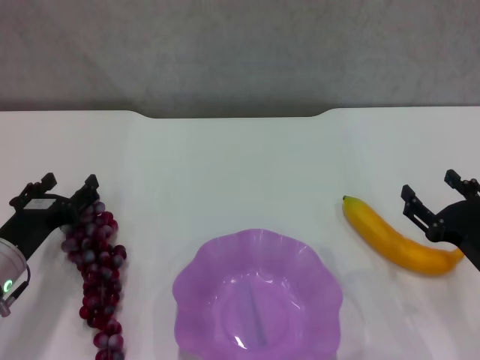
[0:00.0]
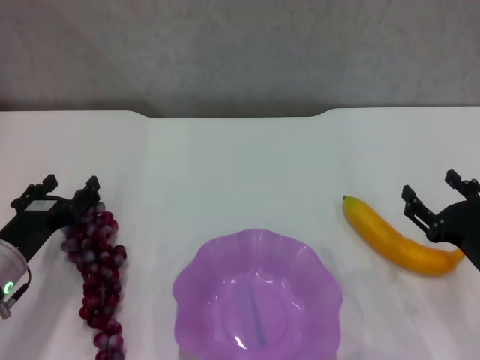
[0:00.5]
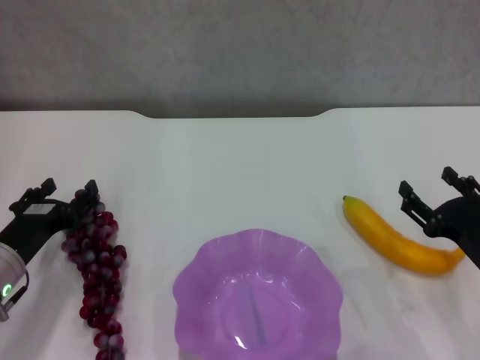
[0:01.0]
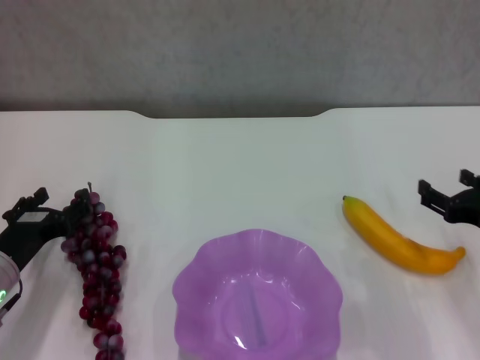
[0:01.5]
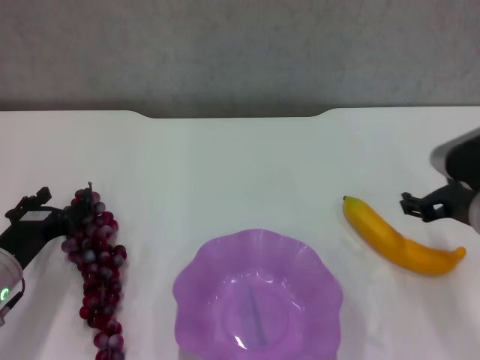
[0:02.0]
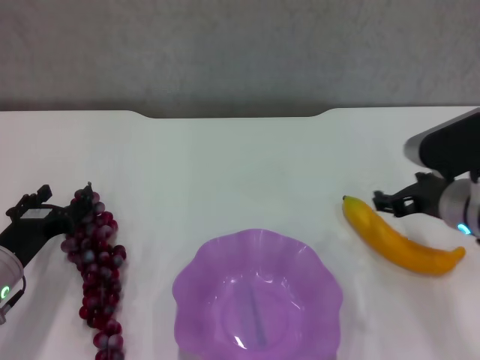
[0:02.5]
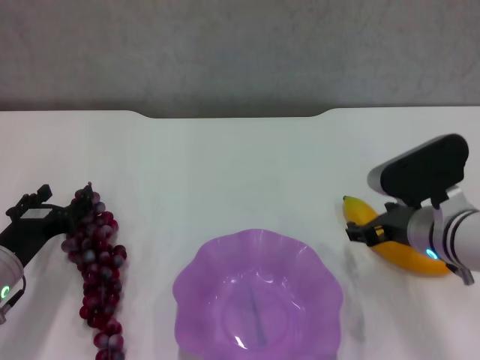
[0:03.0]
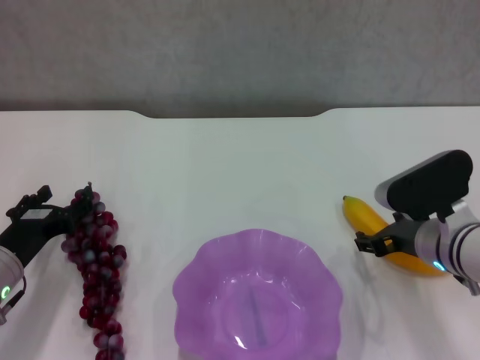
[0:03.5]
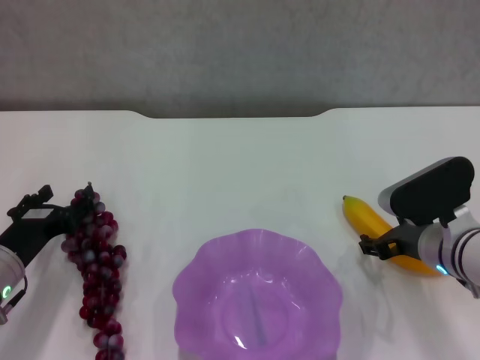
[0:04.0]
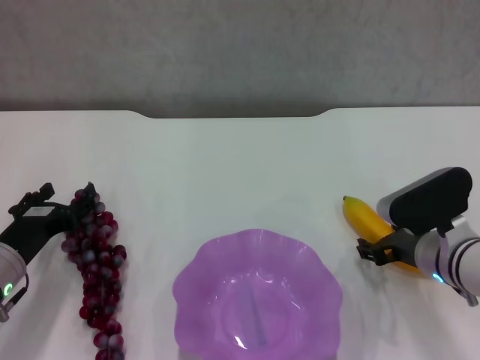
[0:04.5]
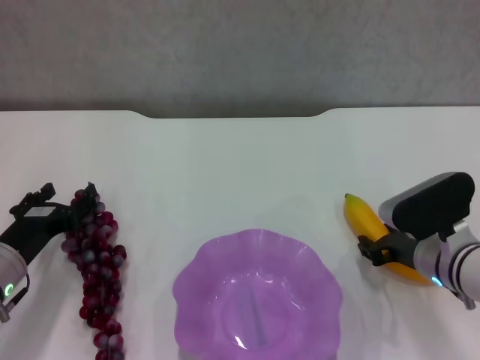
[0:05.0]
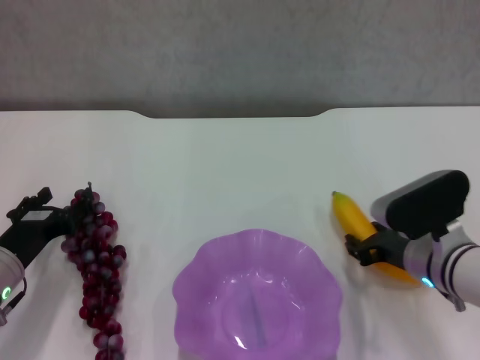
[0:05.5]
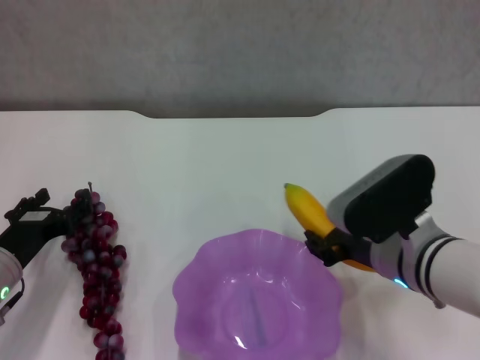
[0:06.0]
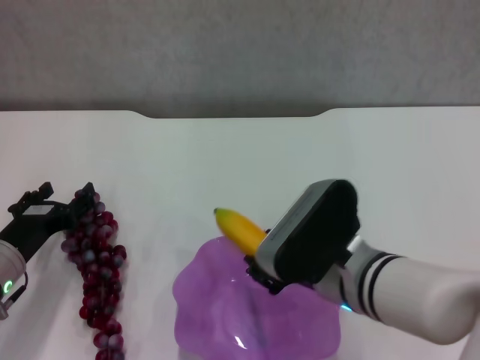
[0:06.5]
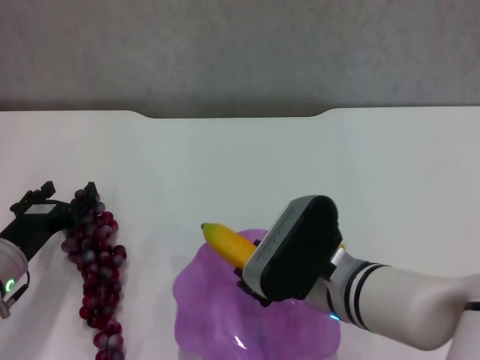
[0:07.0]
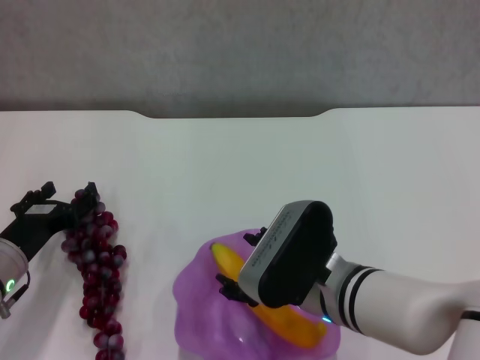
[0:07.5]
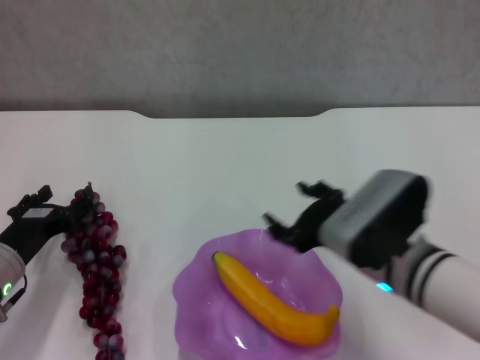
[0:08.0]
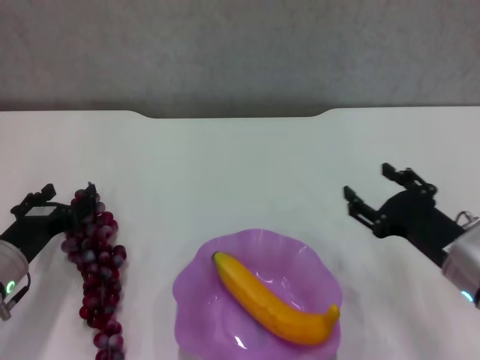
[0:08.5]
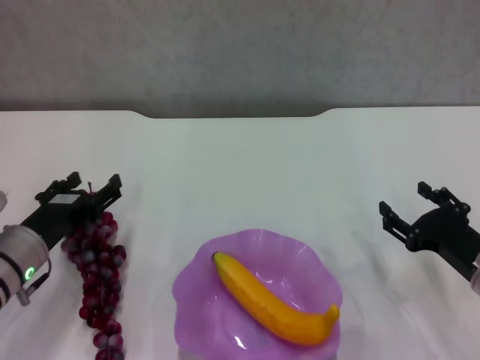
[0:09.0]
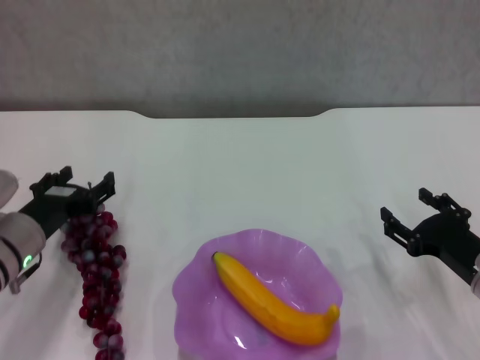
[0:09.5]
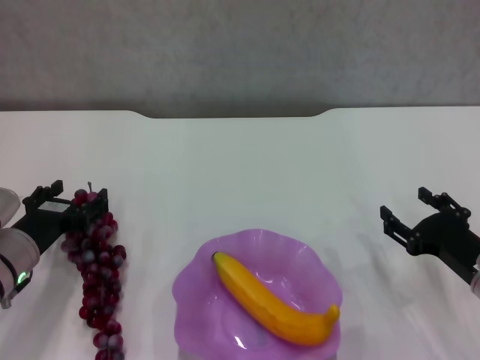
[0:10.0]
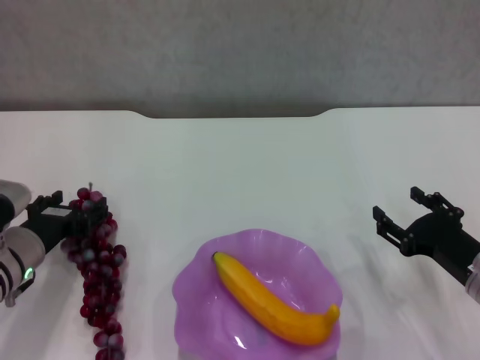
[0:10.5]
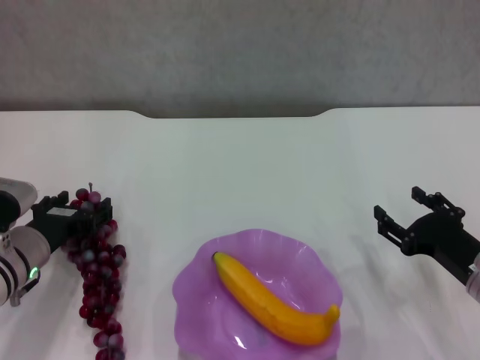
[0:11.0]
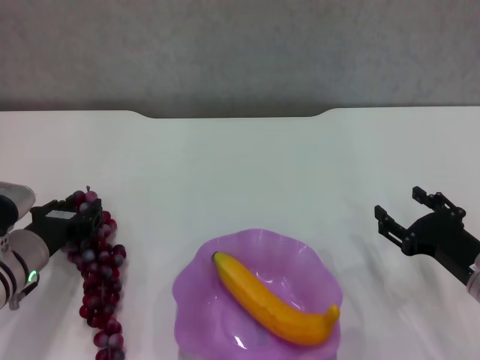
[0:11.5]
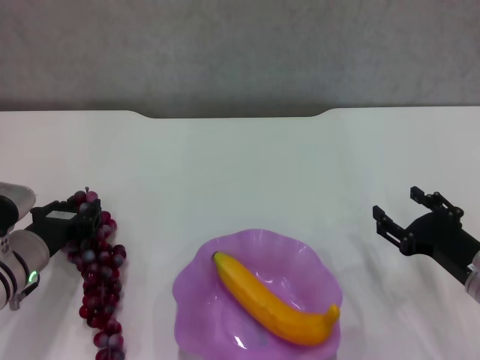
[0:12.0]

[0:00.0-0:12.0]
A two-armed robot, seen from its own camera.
Step, 0:00.0 to 0:04.5: Grasp the banana with right gripper.
Step, 0:05.5 to 0:07.5: Place the banana in the purple plate with right gripper.
0:00.0 to 0:02.0: The right gripper is displaced upward and forward by some 10 cm.
0:02.0 to 0:04.0: The right gripper moves downward, about 5 cm.
0:04.0 to 0:06.0: The right gripper is displaced to the left and upward by approximately 10 cm, and closes its fingers.
0:06.0 to 0:08.0: The right gripper opens its fingers.
0:08.0 to 0:10.0: The right gripper moves to the right and downward, roughly 15 cm.
0:10.0 to 0:12.0: The left gripper closes its fingers.

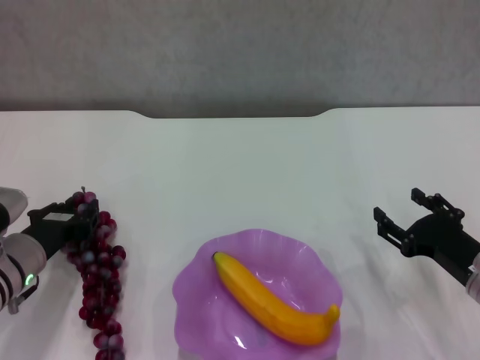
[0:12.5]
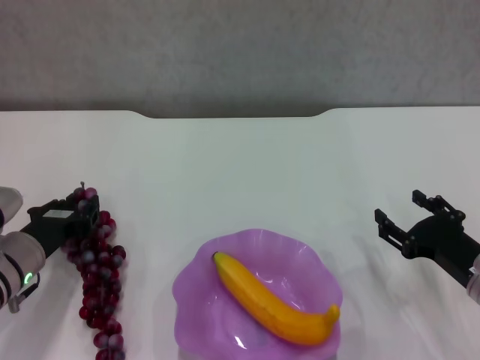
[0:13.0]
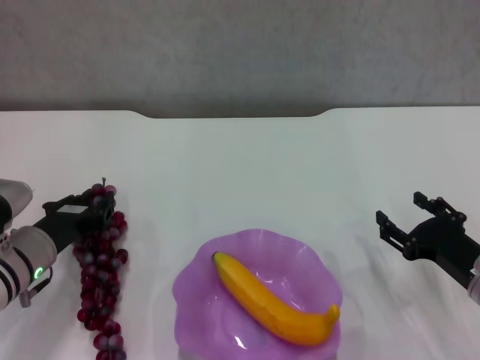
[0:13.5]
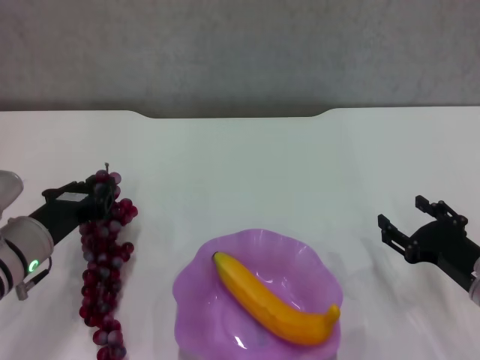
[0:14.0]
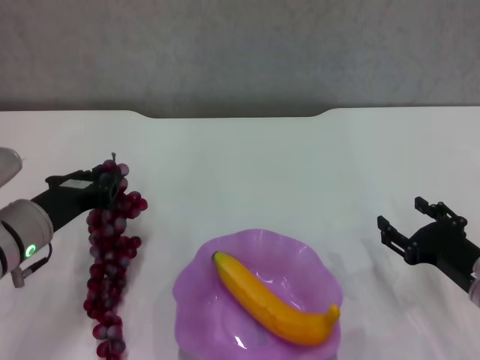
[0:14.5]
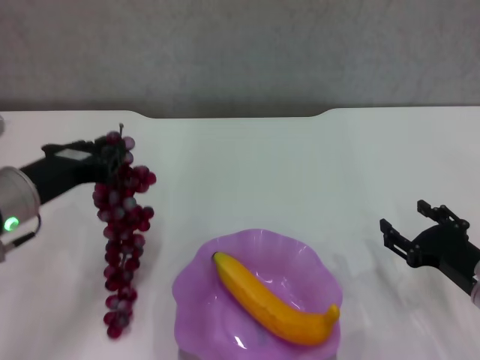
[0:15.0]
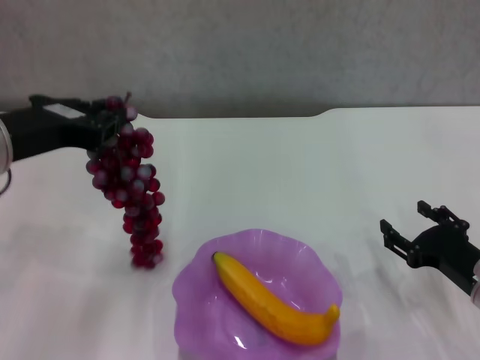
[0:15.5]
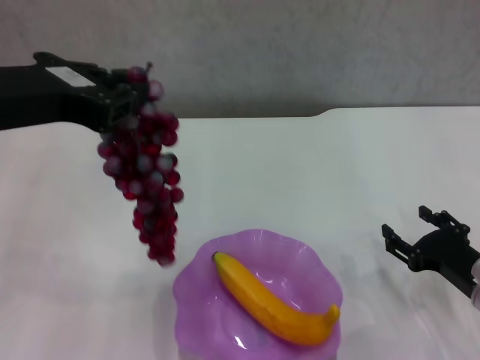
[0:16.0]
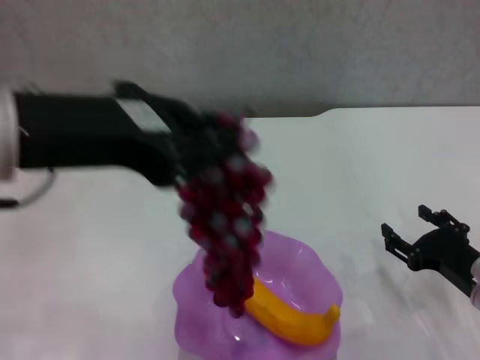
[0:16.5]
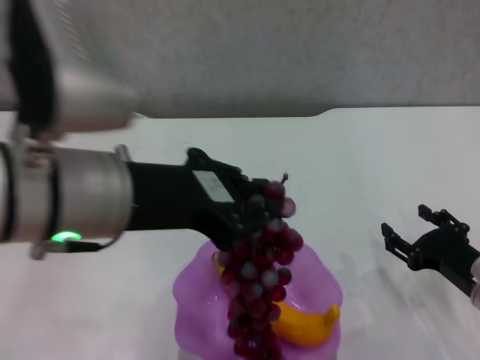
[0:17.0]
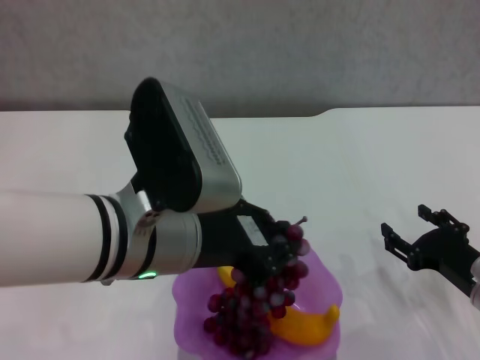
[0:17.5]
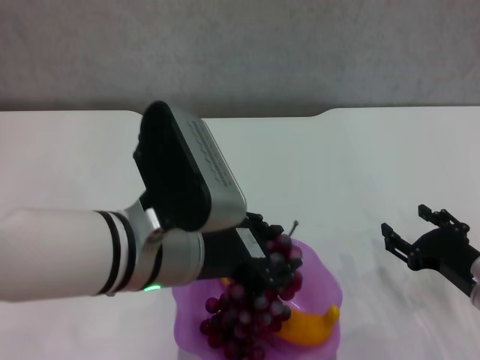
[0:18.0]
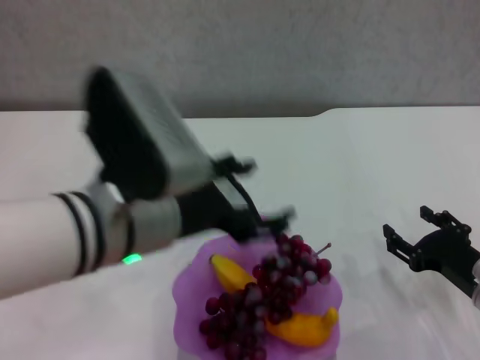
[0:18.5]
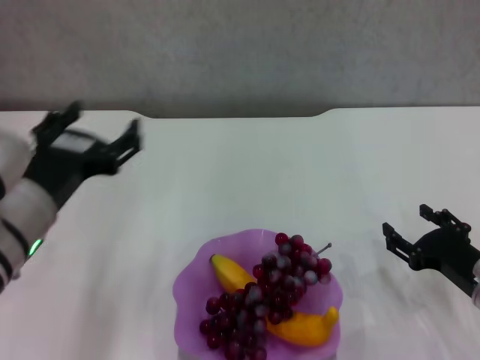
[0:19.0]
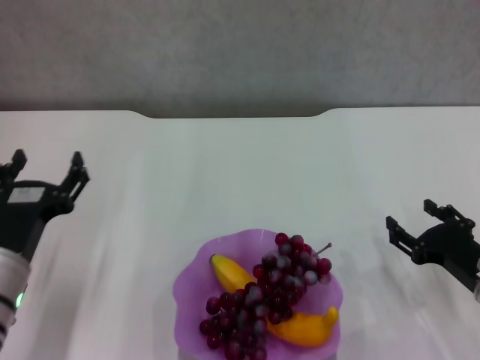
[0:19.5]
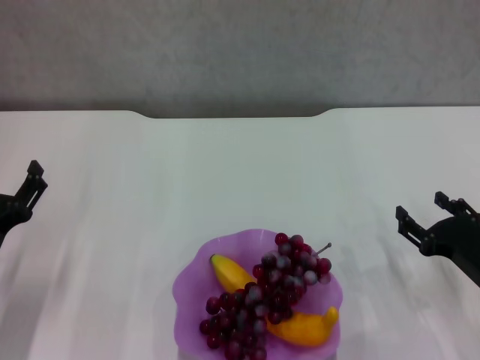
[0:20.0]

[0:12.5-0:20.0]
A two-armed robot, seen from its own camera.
Step, 0:12.5 to 0:18.5: Place the grape in the purple plate with left gripper.
0:12.5 to 0:14.5: The left gripper is displaced upward by approximately 5 cm.
0:14.5 to 0:16.5: The left gripper is displaced upward by roughly 25 cm.
0:16.5 to 0:18.0: The left gripper heads downward and to the right, covering about 15 cm.
0:18.0 to 0:20.0: The left gripper is displaced to the left and downward by some 25 cm, and opens its fingers.

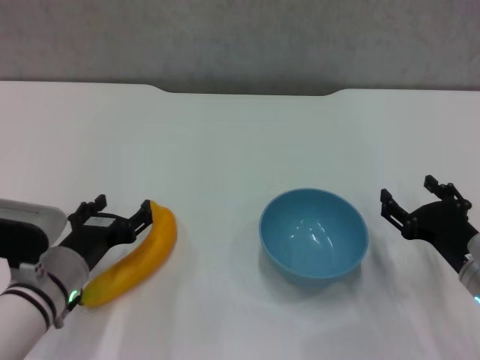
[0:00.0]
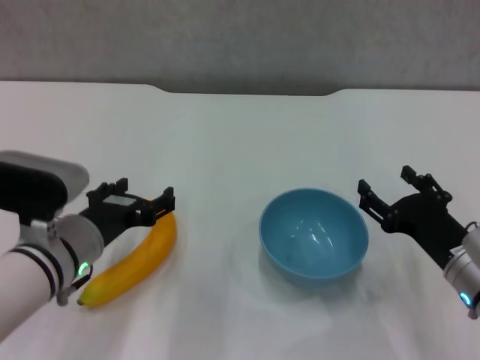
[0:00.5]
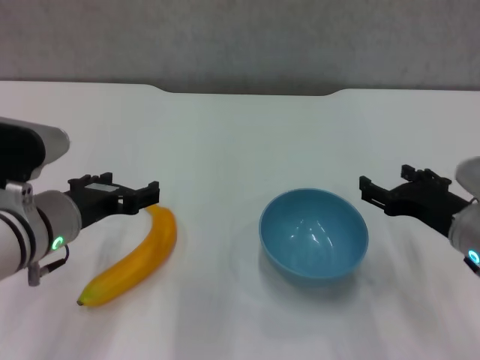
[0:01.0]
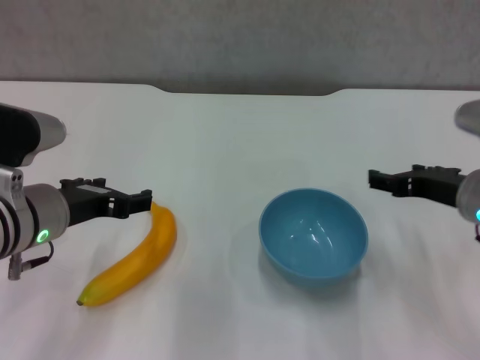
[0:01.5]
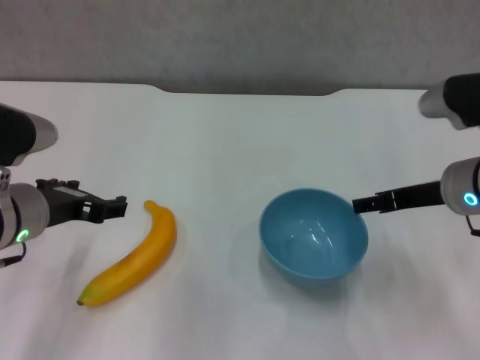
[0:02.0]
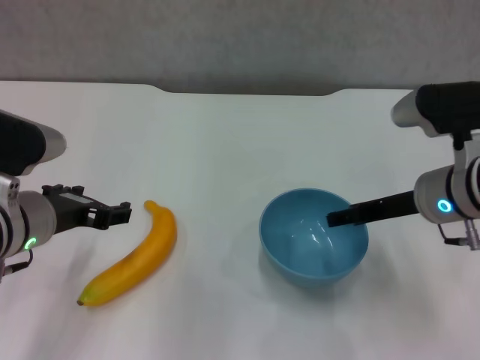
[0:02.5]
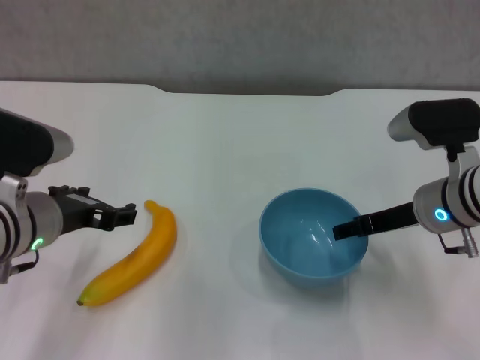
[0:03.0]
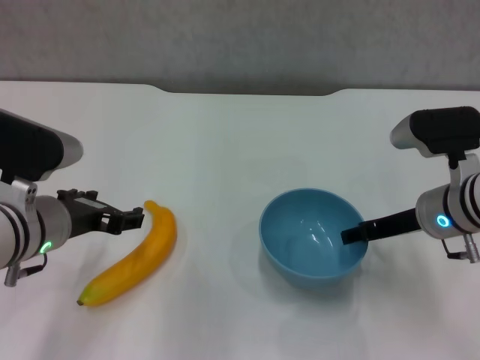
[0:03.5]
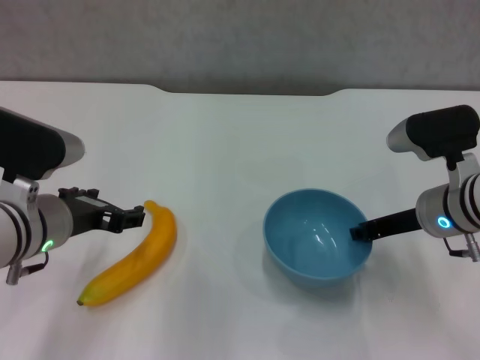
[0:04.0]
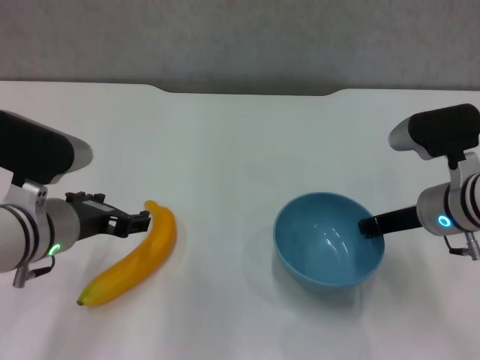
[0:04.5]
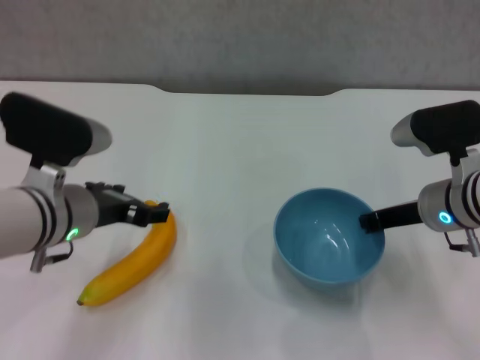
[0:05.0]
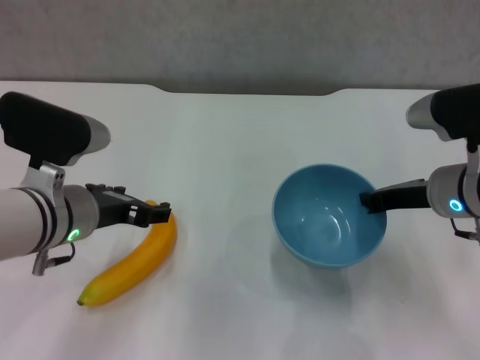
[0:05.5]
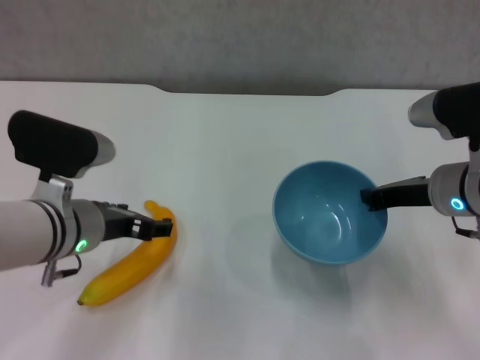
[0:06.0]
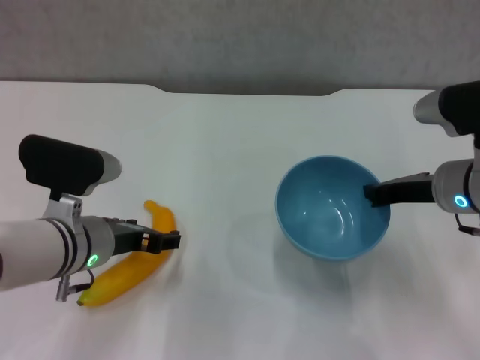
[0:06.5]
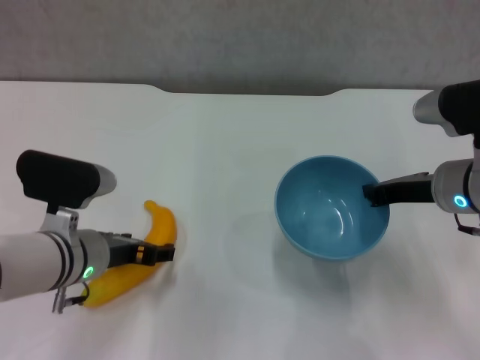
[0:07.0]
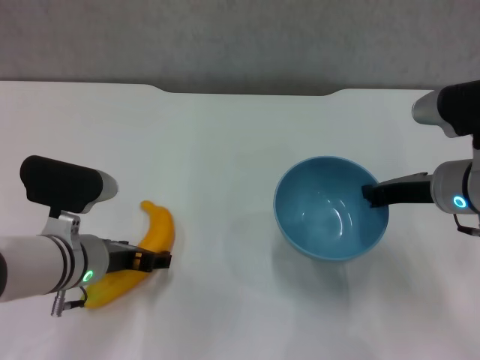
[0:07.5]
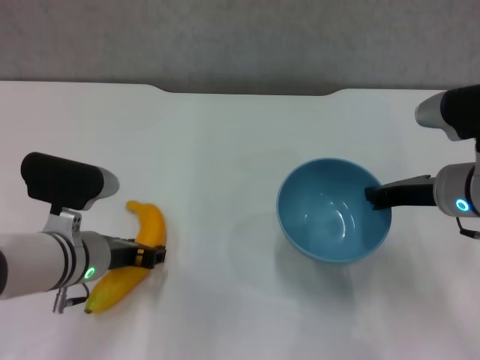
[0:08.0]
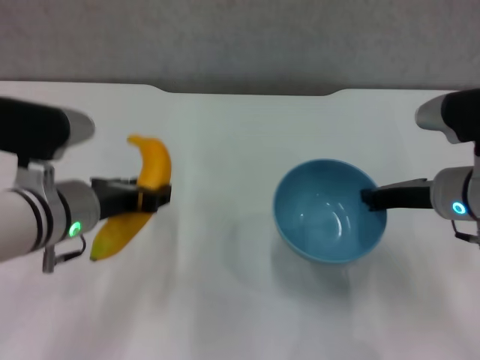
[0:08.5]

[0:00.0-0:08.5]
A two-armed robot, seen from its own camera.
Step, 0:00.0 to 0:04.0: Grasp the blue bowl with right gripper.
Step, 0:05.5 to 0:07.5: Grasp the banana with left gripper.
0:00.0 to 0:02.0: The right gripper goes roughly 15 cm upward and forward, while the left gripper goes some 10 cm upward.
0:02.0 to 0:04.0: The right gripper changes place by roughly 5 cm.
0:04.0 to 0:06.5: The right gripper closes.
0:06.5 to 0:08.5: The left gripper closes its fingers.
